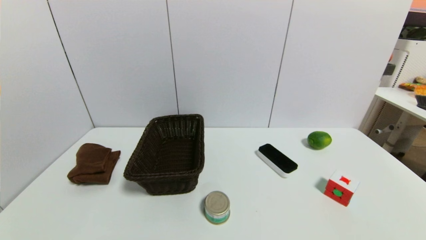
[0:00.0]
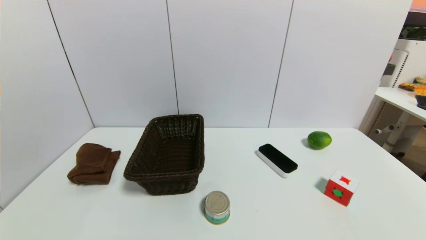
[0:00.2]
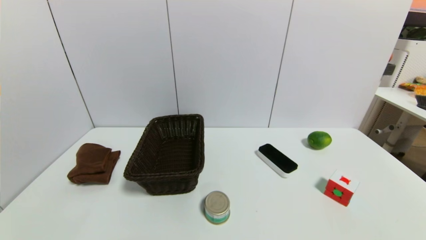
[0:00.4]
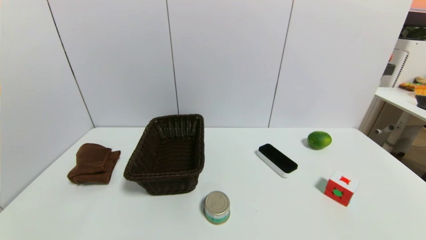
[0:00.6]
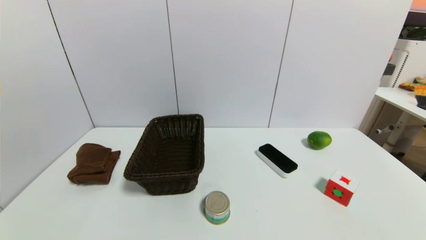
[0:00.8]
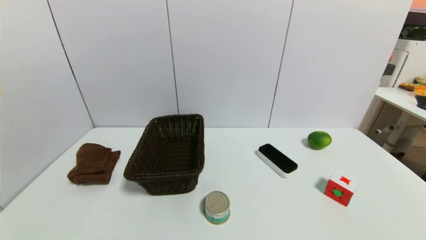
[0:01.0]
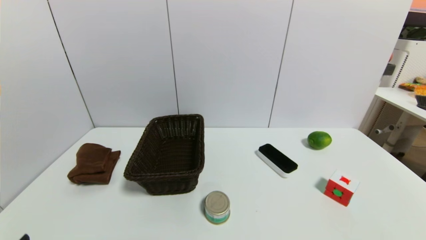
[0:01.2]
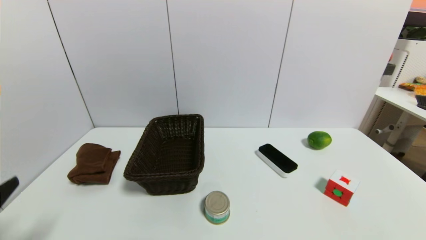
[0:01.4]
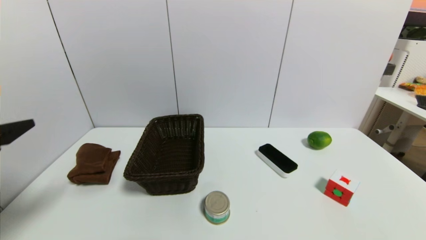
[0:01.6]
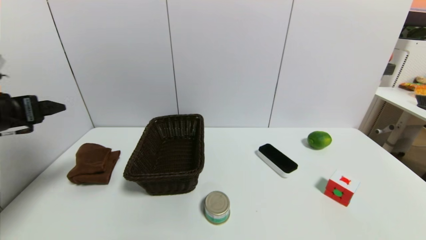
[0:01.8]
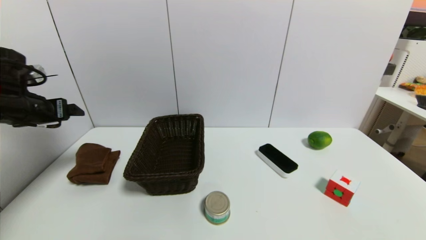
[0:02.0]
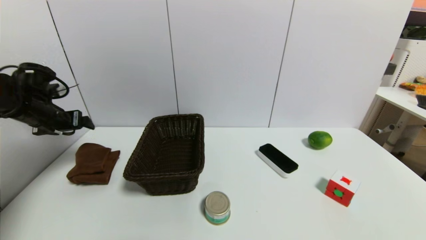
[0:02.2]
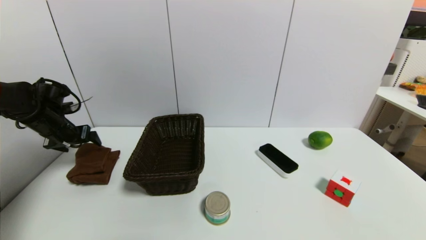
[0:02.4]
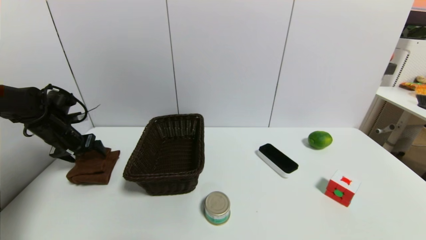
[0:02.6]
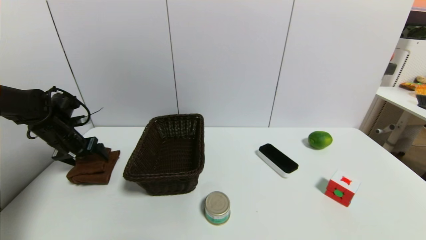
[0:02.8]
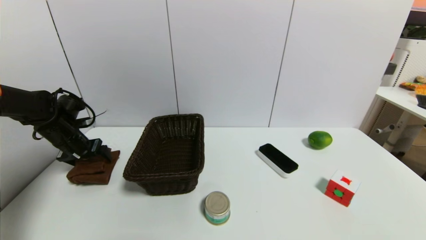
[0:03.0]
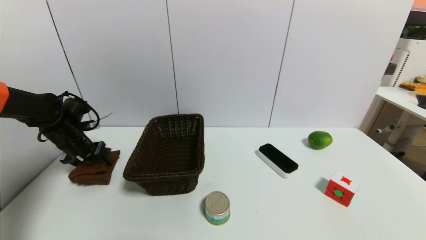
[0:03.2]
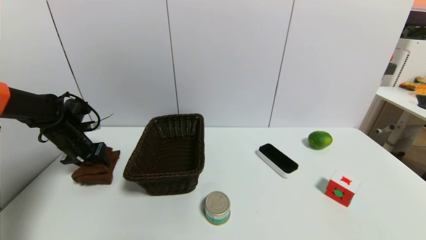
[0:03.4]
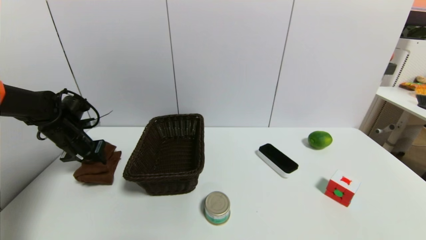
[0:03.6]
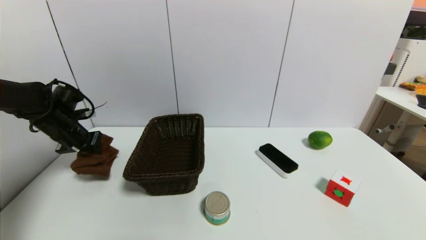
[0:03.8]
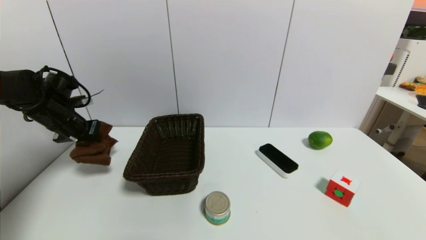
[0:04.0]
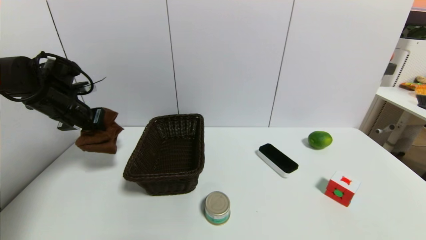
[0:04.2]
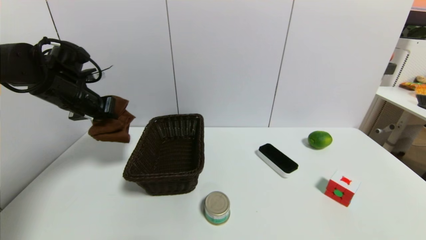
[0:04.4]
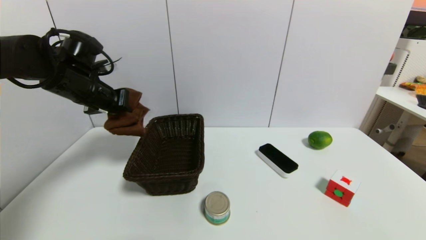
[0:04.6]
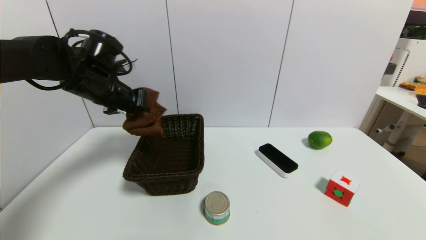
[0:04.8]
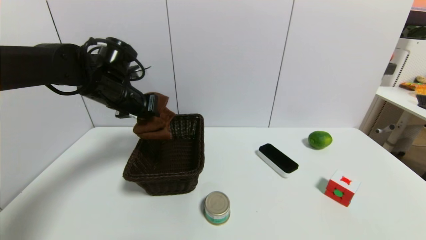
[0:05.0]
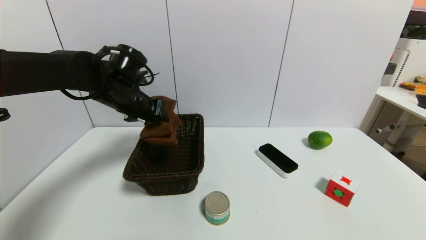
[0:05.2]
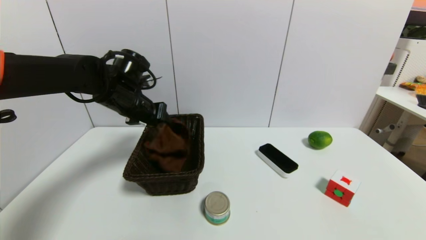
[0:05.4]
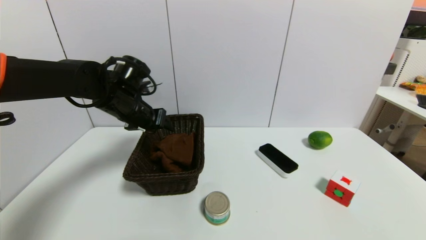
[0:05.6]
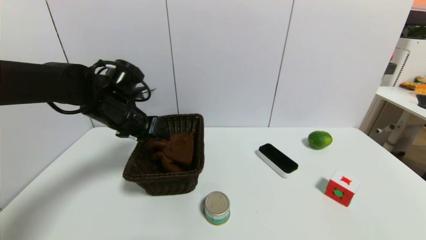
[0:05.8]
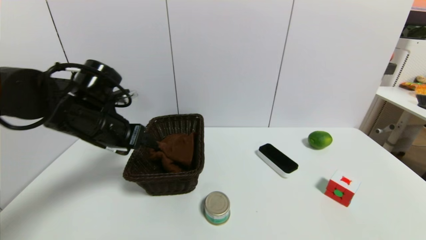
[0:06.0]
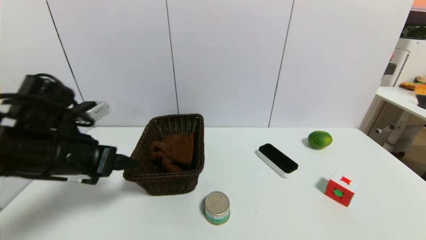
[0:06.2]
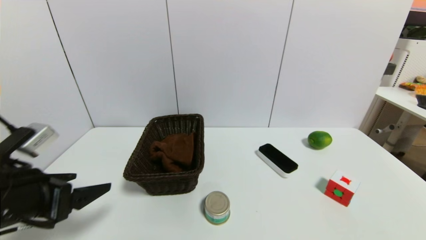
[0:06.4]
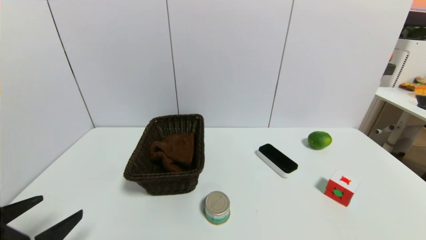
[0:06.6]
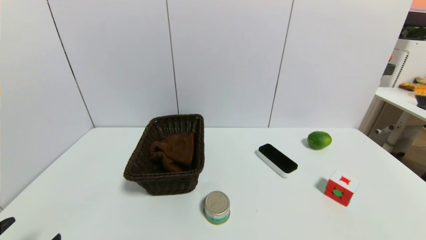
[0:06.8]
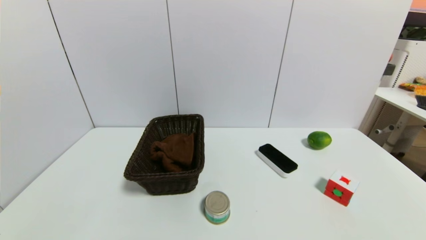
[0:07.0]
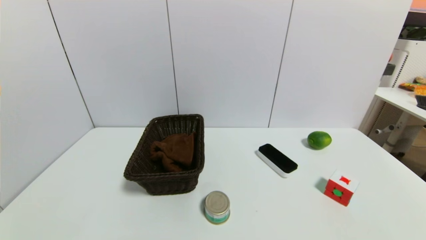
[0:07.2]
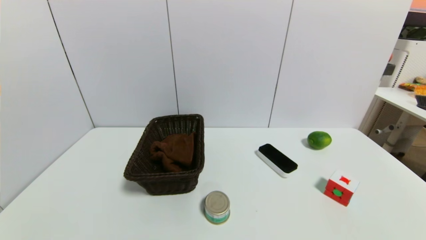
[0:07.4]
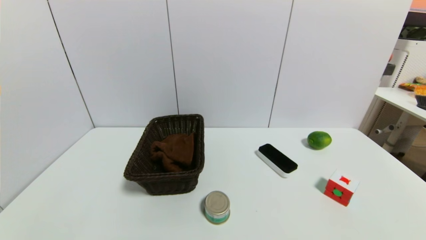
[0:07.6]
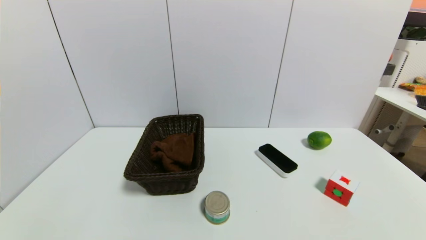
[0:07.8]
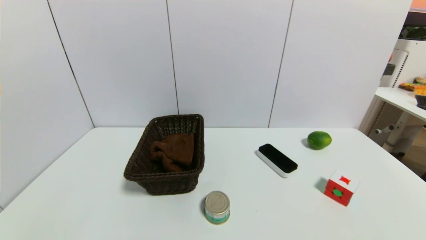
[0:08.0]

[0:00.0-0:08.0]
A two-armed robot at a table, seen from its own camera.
Task of the whole recording: use a gripper to pick the target object and place on the brown basket.
Step, 0:00.0 to 0:03.6: Grasp the brown towel with the left gripper.
Step, 0:03.8 to 0:05.6: Place the brown towel into the basket with the left gripper.
0:00.0 to 0:01.6: The left gripper goes roughly 25 cm upward and forward.
0:01.6 to 0:03.2: The left gripper moves forward and downward, about 30 cm.
0:03.2 to 0:04.8: The left gripper shifts some 20 cm to the right and upward, and closes its fingers.
0:04.8 to 0:06.4: The left gripper goes some 25 cm backward, and opens up.
0:06.4 to 0:08.0: The left gripper travels backward and downward by some 20 cm.
